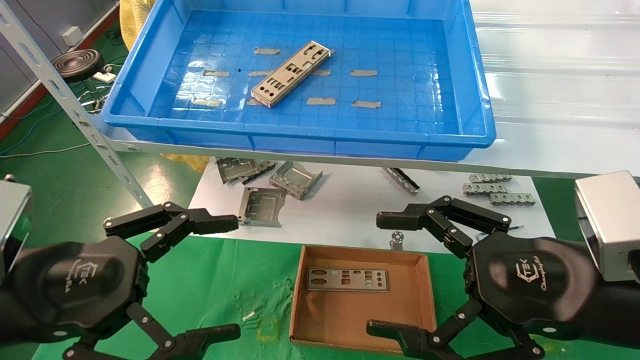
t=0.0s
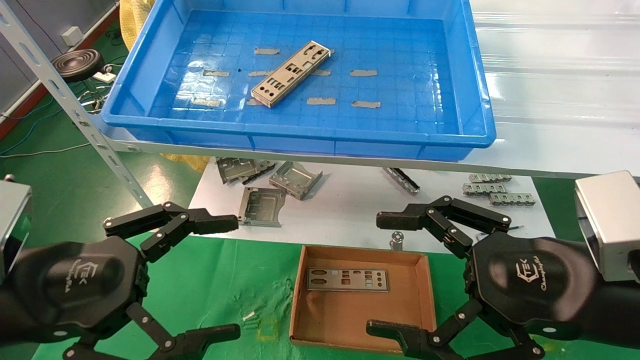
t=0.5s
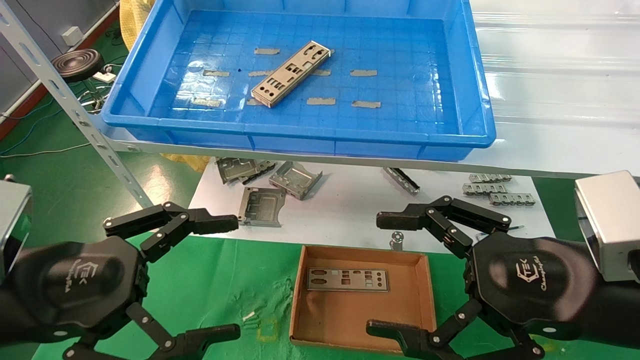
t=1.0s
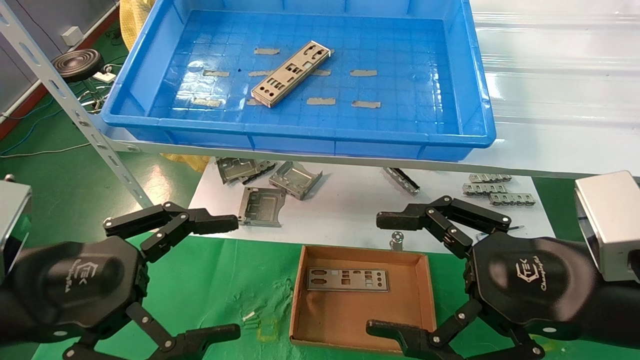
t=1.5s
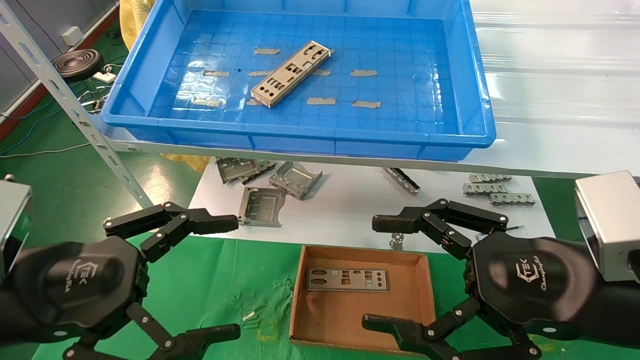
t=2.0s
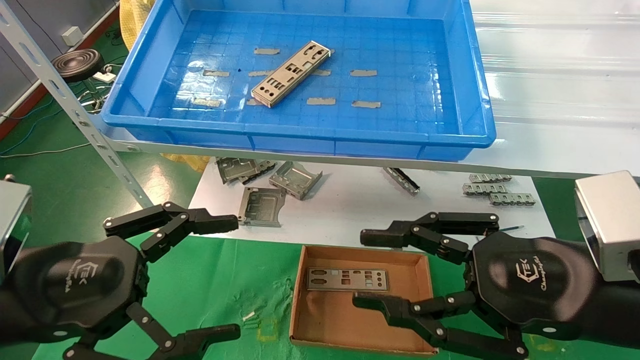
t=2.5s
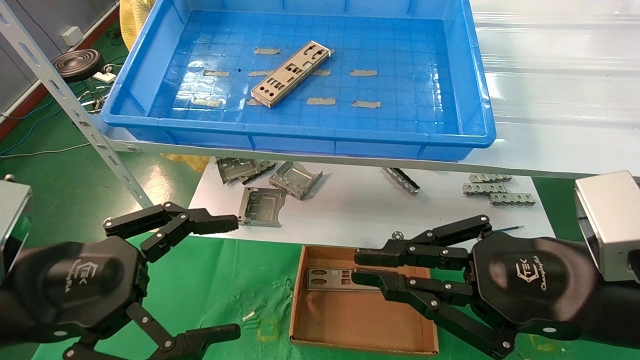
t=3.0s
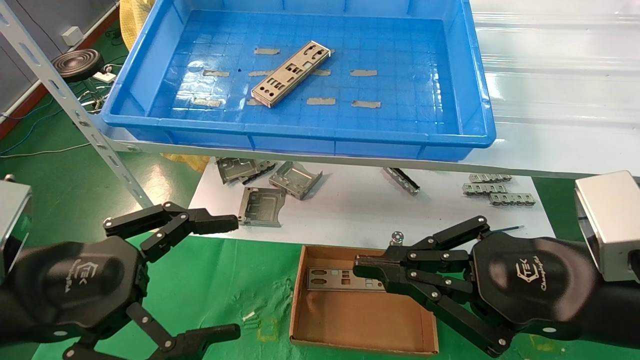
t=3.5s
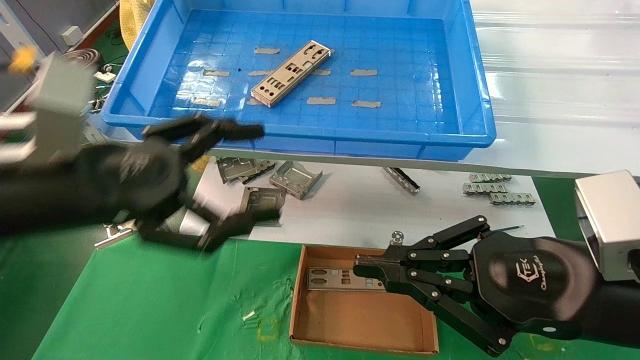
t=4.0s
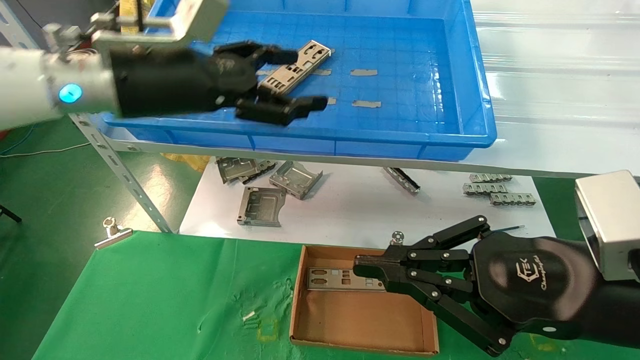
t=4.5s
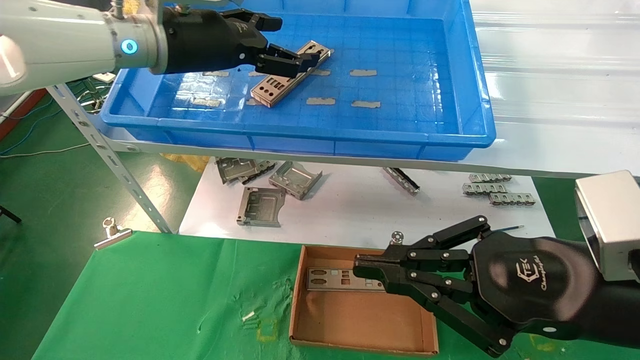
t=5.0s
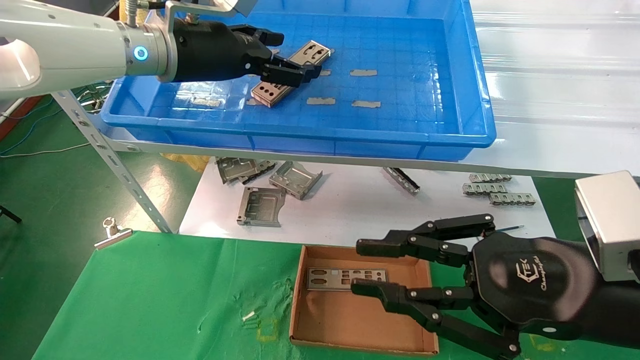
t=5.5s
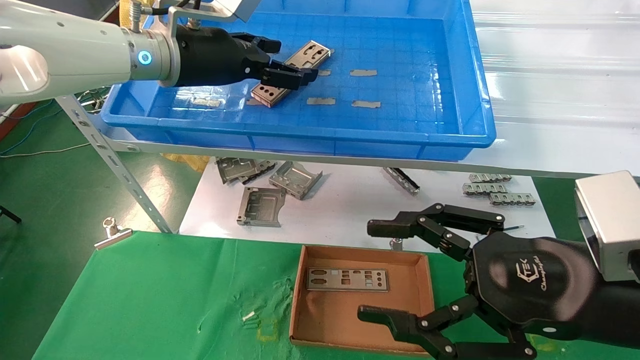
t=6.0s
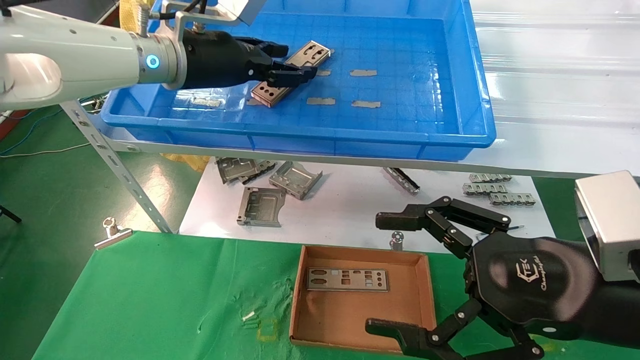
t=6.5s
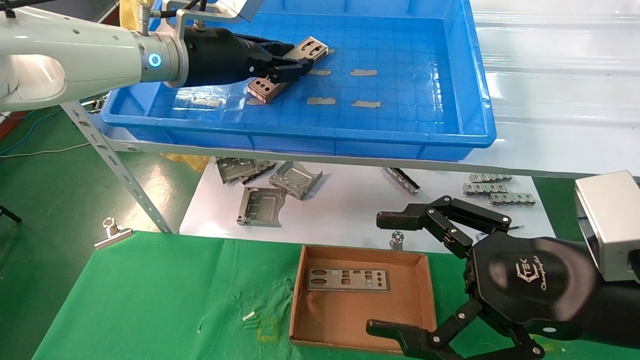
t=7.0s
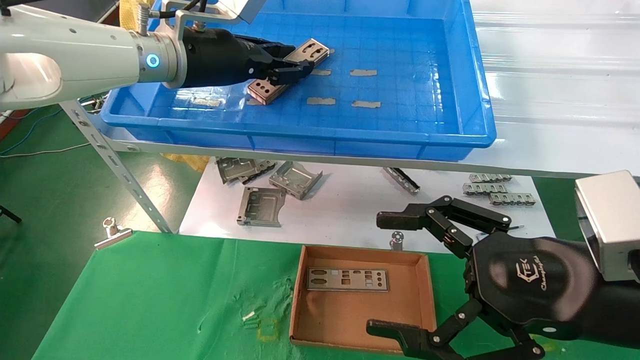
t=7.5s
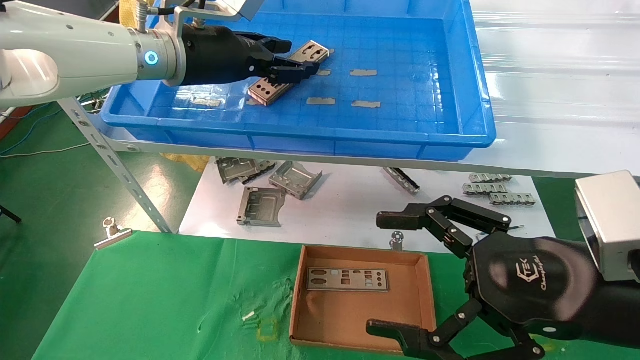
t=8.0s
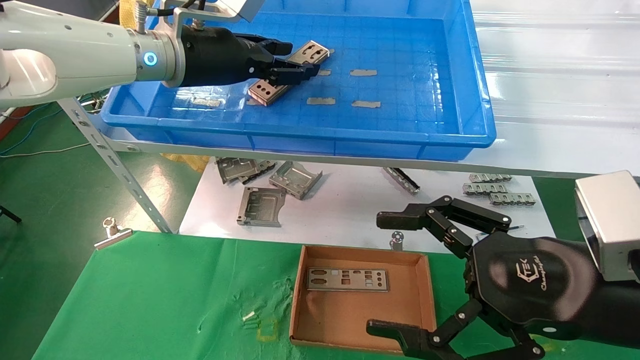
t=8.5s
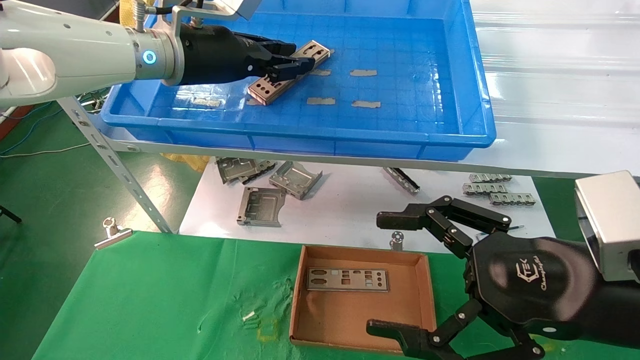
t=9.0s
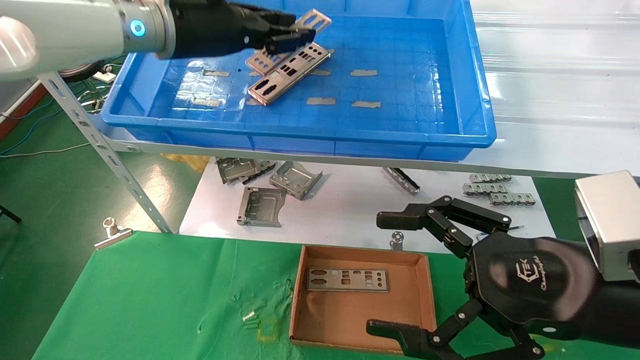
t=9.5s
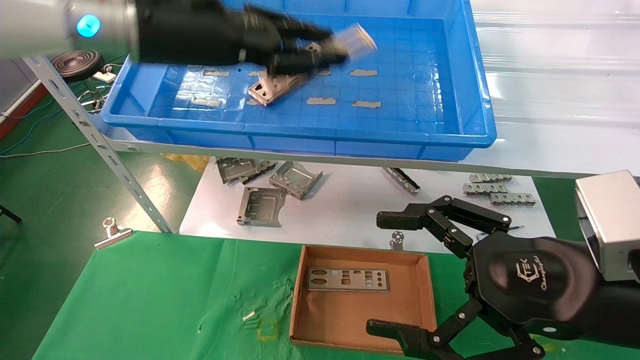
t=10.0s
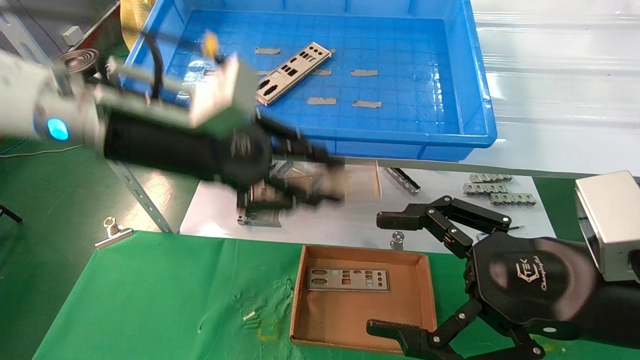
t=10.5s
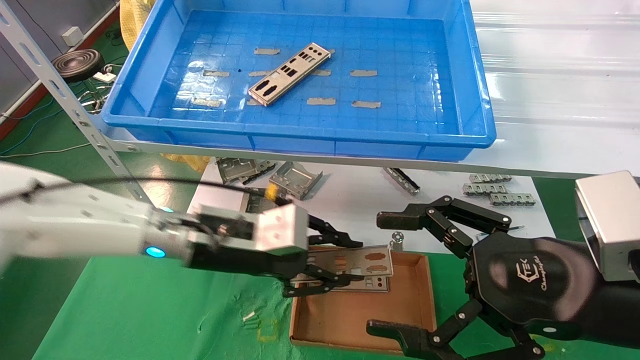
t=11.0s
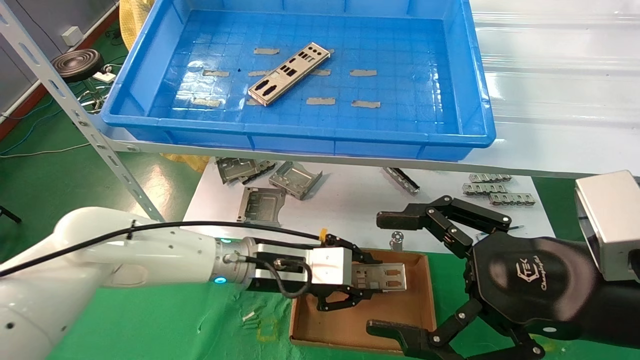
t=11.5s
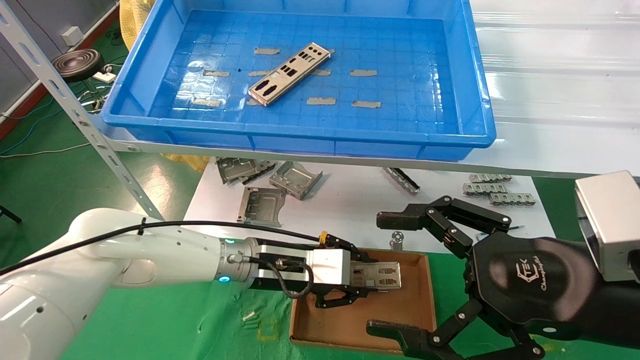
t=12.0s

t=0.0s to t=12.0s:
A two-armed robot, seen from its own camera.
Task of the whole recording: pick up the parts on the tray and put them in the cardboard box.
Step, t=4.0s to t=9.0s: Pick up the IO bracket from the container box.
t=0.0s to t=2.0s: Both grippers stay put.
t=2.0s to t=4.0s: The left gripper travels upward and forward by some 10 cm, while the right gripper closes its fingers.
t=4.0s to t=6.0s: The left gripper shifts approximately 20 cm forward, upward and to the right. Meanwhile the right gripper opens its fingers.
t=6.0s to t=8.0s: The left gripper closes its fingers. The right gripper opens.
t=8.0s to t=10.0s: The left gripper travels backward by about 10 cm.
t=10.0s to t=12.0s: The left gripper is displaced downward by about 30 cm.

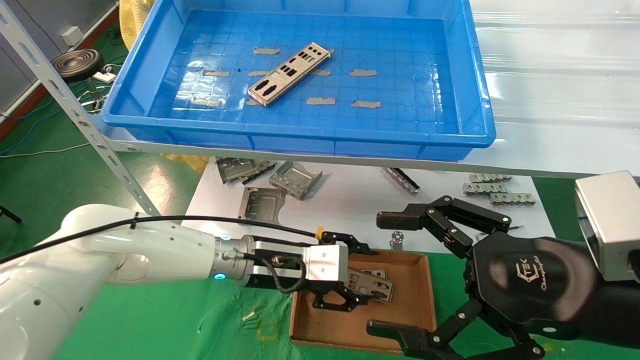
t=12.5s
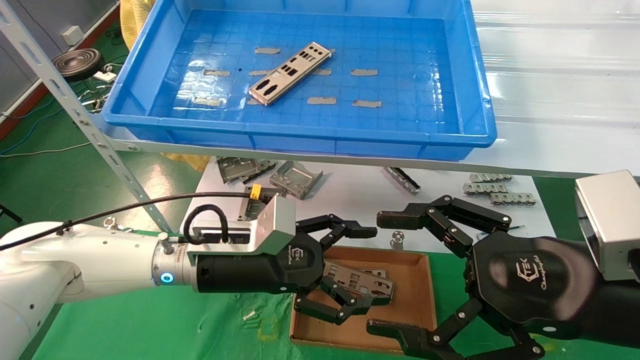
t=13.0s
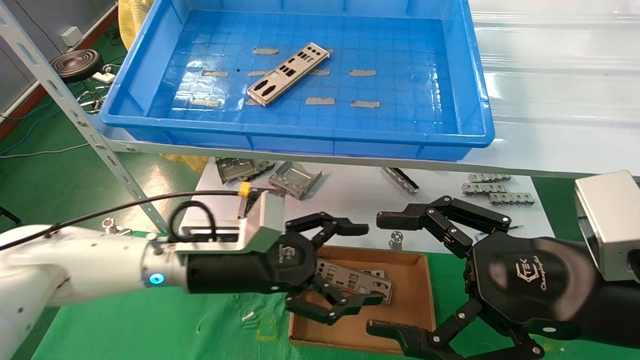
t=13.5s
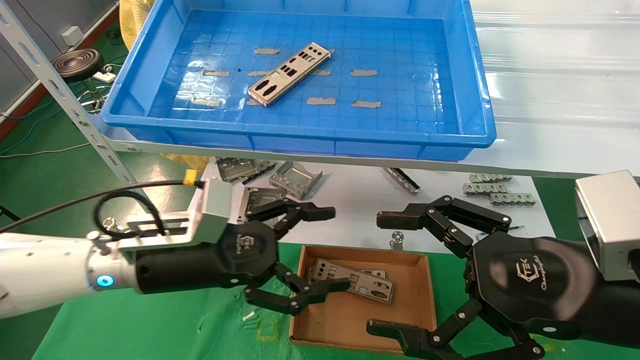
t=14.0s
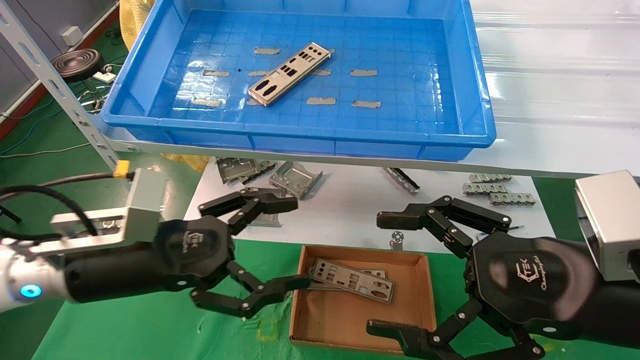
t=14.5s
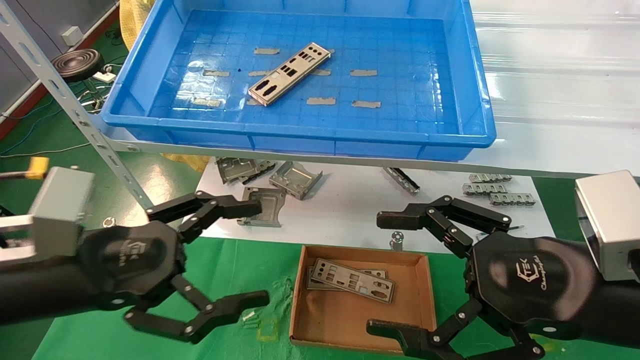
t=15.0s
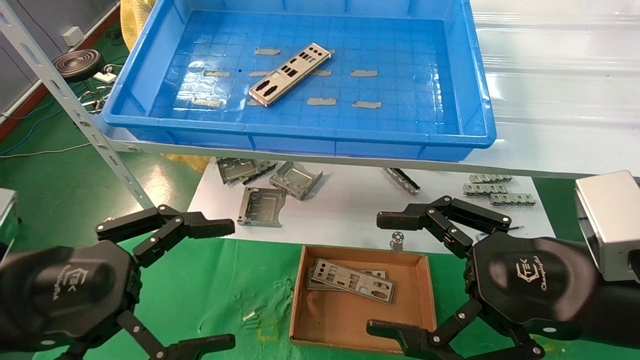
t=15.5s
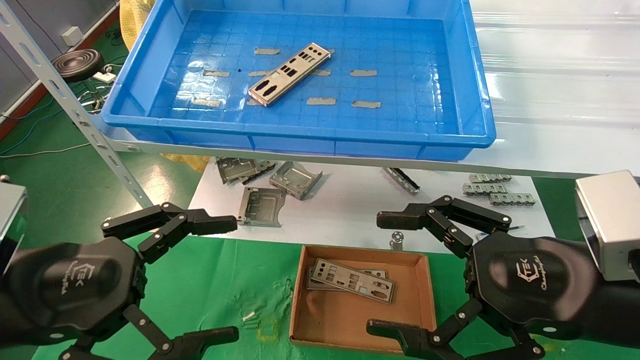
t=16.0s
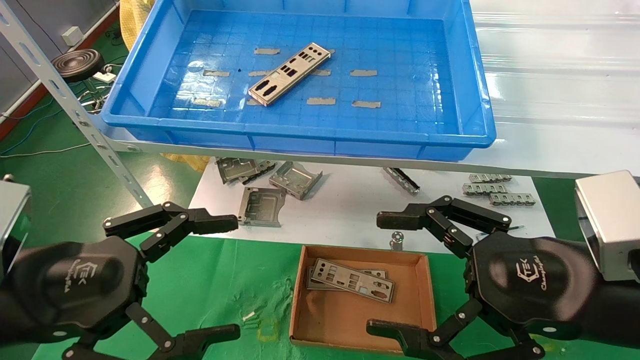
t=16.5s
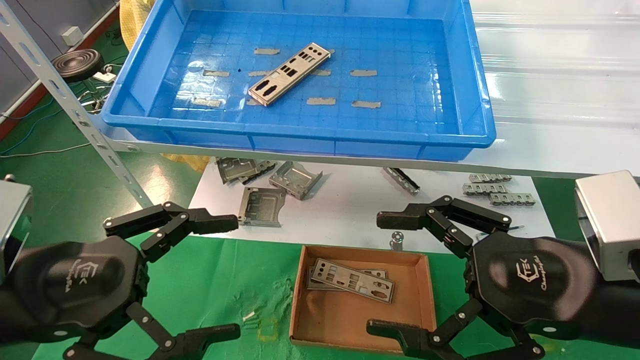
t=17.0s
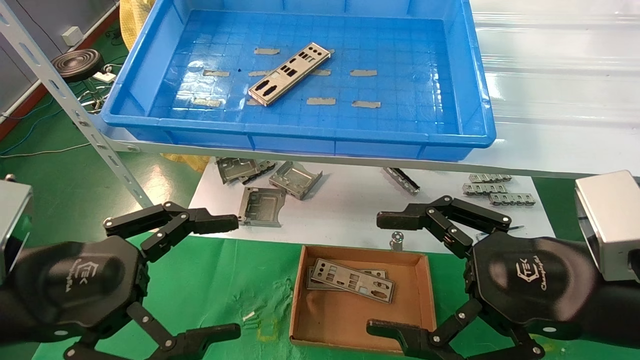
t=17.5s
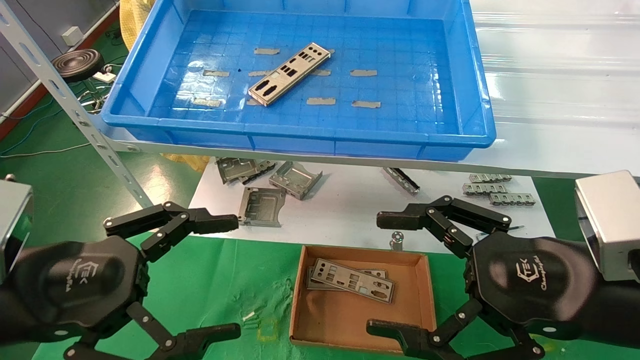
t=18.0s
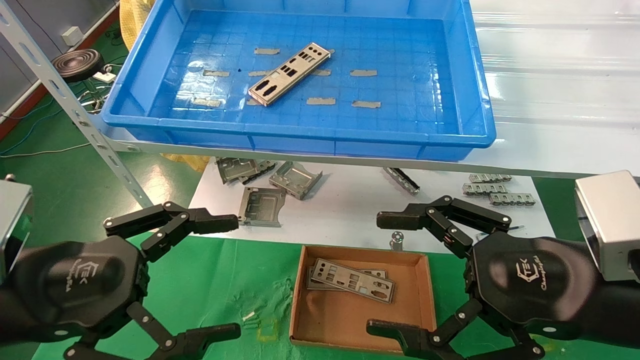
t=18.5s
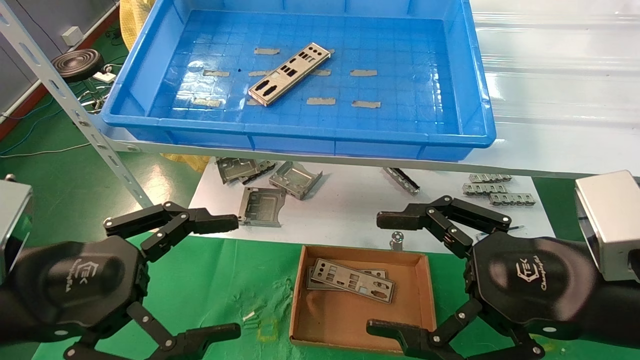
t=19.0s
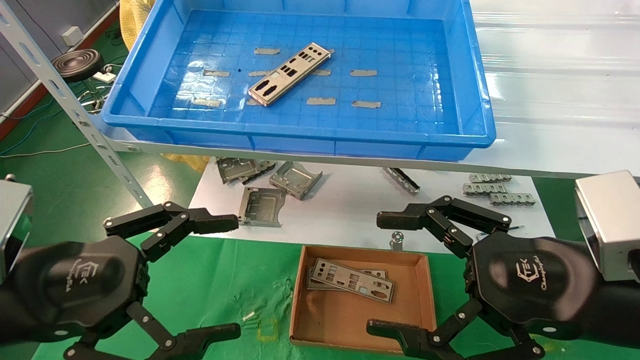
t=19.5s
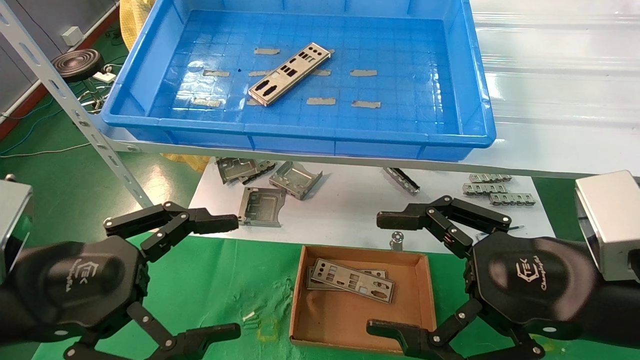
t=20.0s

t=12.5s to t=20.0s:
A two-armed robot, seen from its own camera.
Task of the whole recording: pick up the parts on the tray and put them in the cardboard box.
t=12.5s to t=14.5s: The left gripper heads to the left, backward and upward, covering some 20 cm, and opens its fingers.
t=14.5s to t=16.5s: The left gripper travels backward by about 10 cm.
t=16.5s to t=20.0s: Both grippers stay about where they are.
